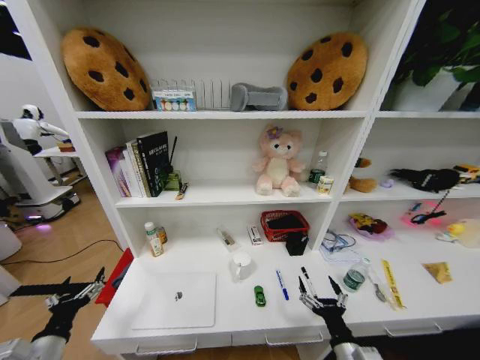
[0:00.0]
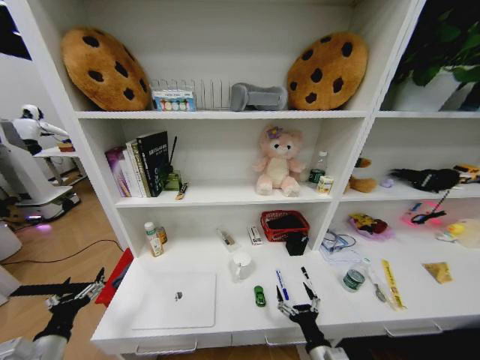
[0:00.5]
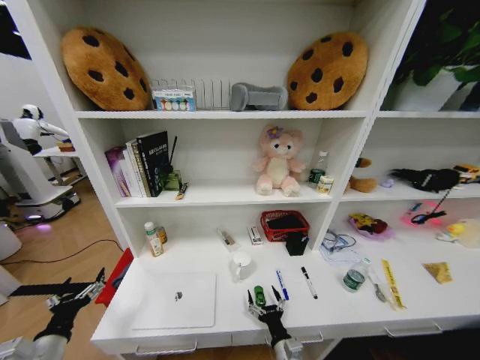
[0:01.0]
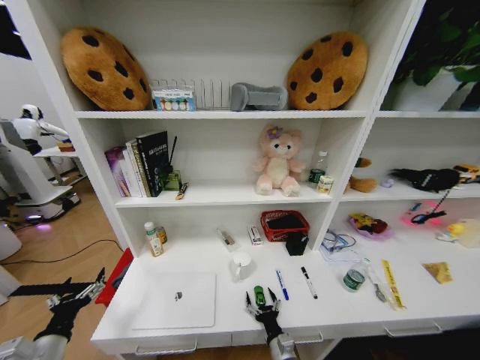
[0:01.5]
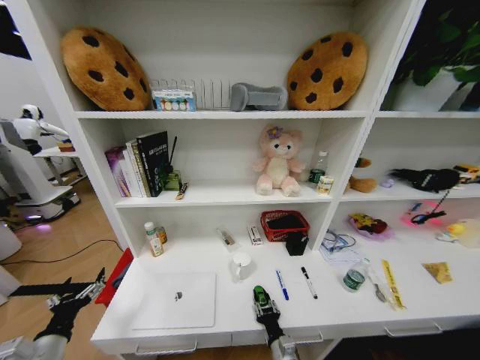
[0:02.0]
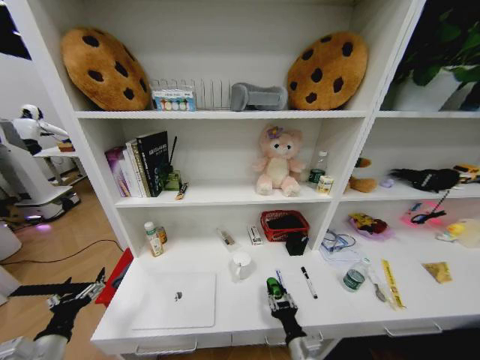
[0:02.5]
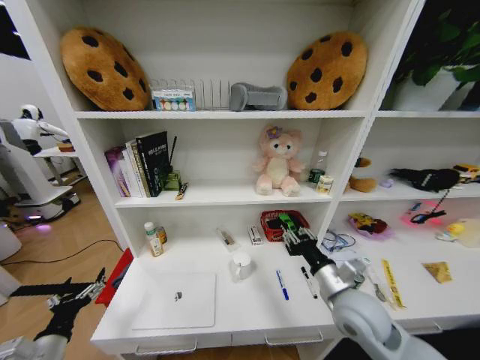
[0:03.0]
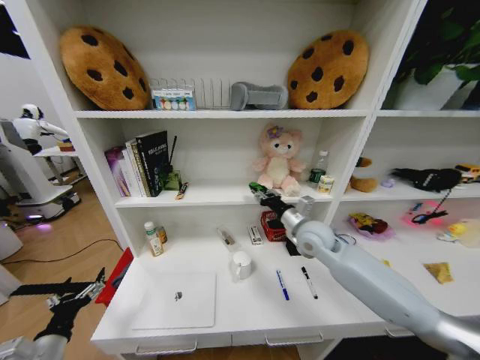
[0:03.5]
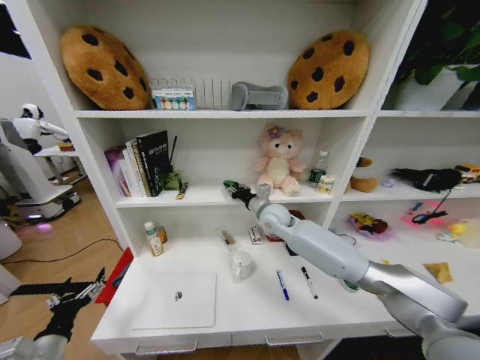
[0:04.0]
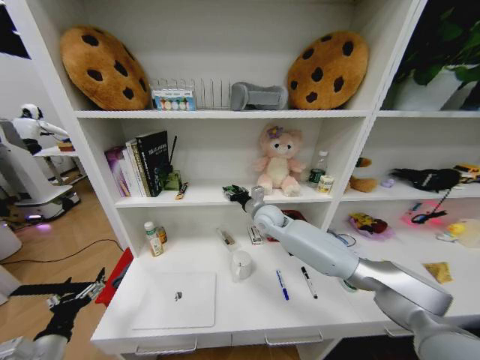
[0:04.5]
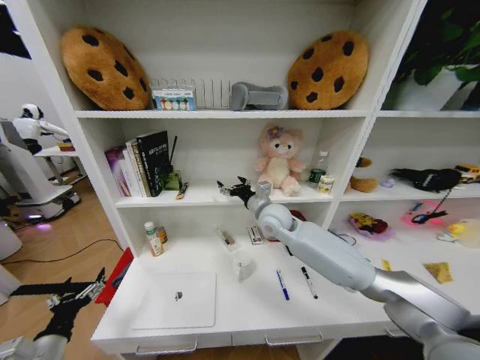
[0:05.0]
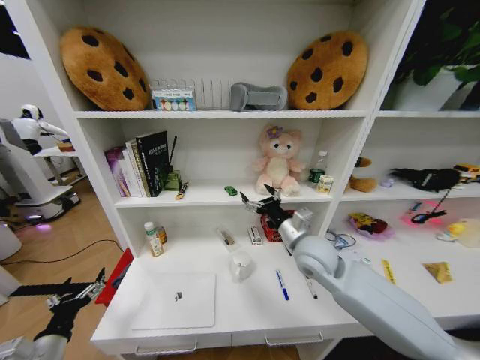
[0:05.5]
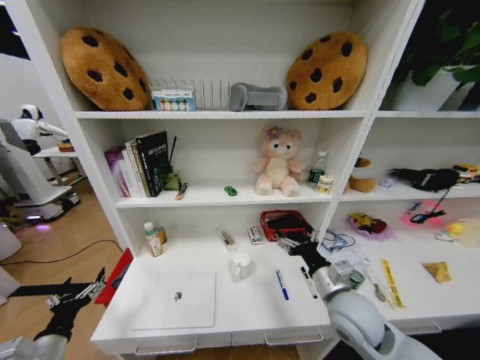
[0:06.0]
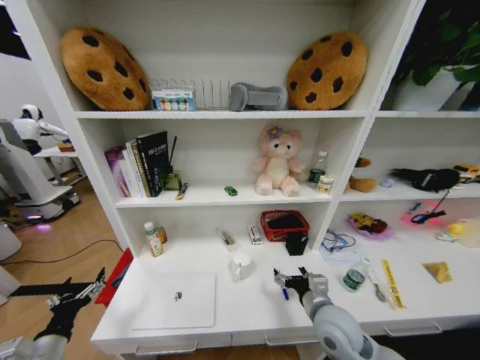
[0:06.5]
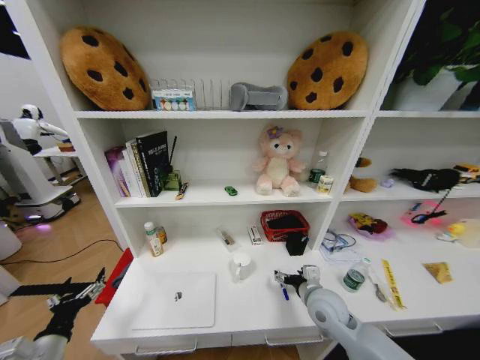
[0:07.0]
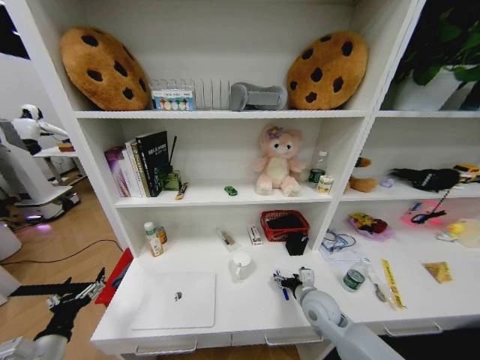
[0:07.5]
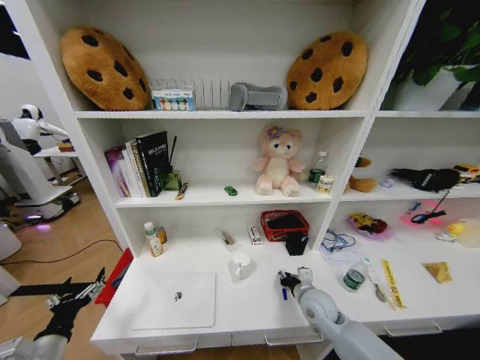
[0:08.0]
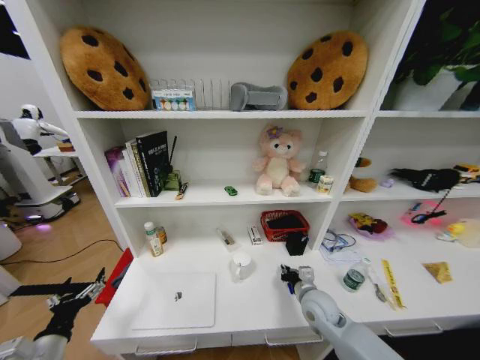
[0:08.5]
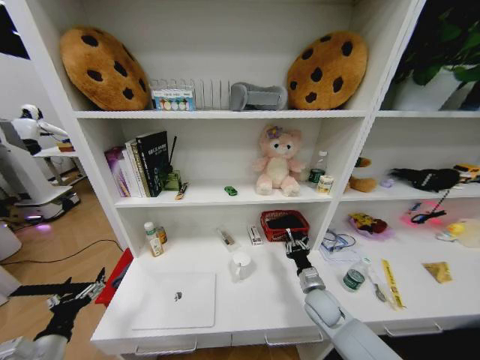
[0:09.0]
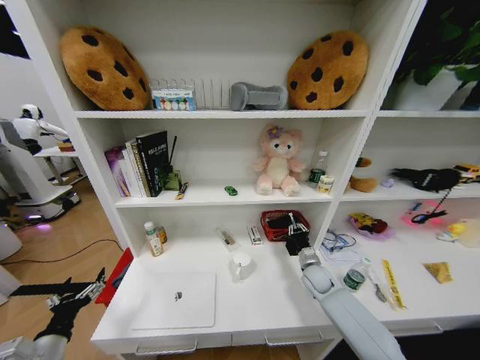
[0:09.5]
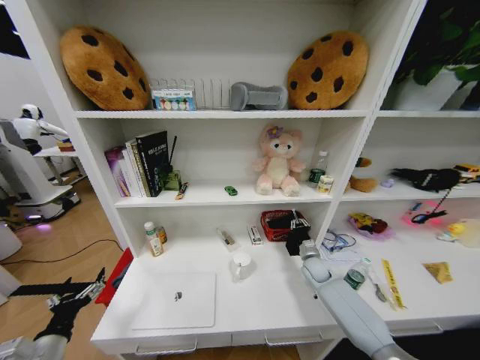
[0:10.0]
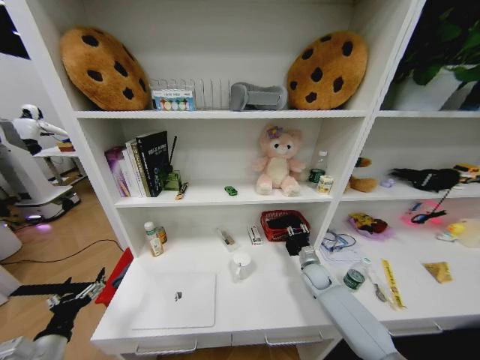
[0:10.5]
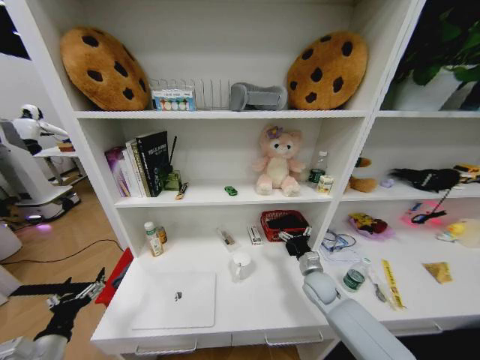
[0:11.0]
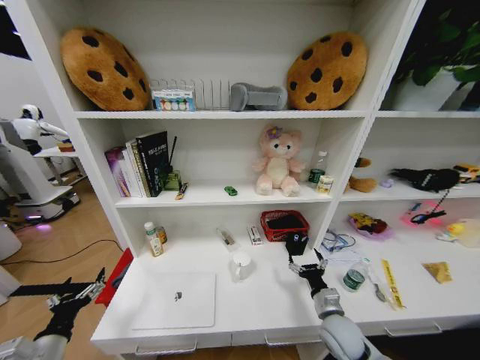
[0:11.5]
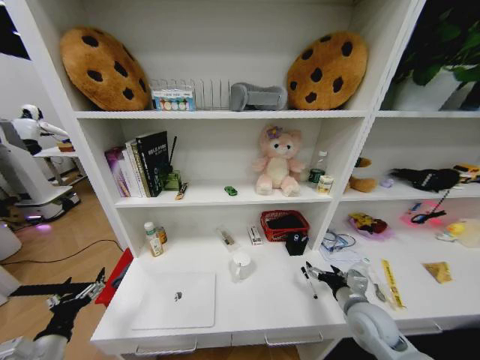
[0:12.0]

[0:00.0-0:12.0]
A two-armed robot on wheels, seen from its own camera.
Task of the whole recording: Organize the objects on the table.
0.0 to 2.0 s: The right gripper goes some 15 cm to the left and downward, and closes.
2.0 to 4.0 s: The right gripper moves forward and upward, roughly 50 cm.
4.0 to 6.0 s: The right gripper travels backward and to the right by roughly 30 cm, and opens up.
6.0 to 8.0 s: The right gripper heads downward and forward, covering about 15 cm, and closes.
8.0 to 10.0 s: The right gripper moves forward and to the right, about 15 cm.
10.0 to 12.0 s: The right gripper is displaced backward and upward by some 20 cm, and opens.

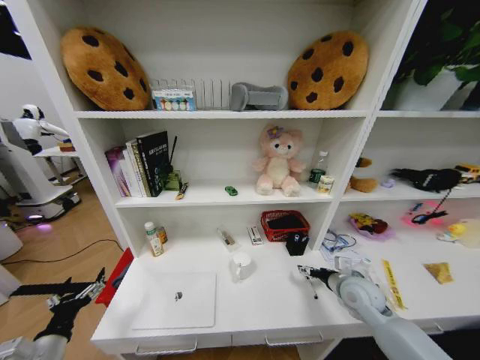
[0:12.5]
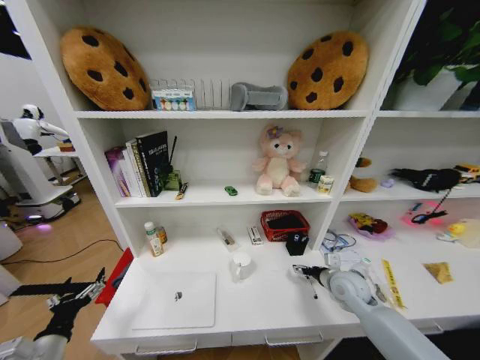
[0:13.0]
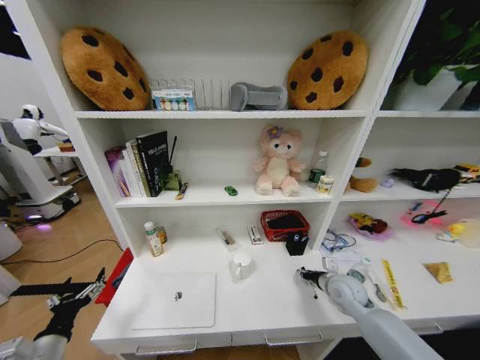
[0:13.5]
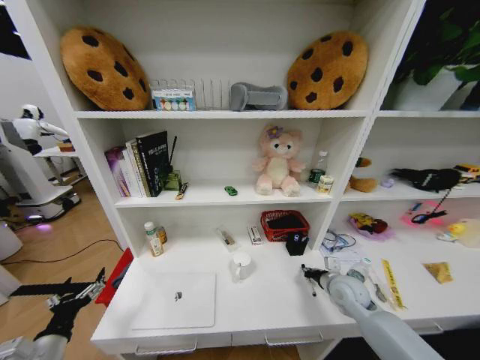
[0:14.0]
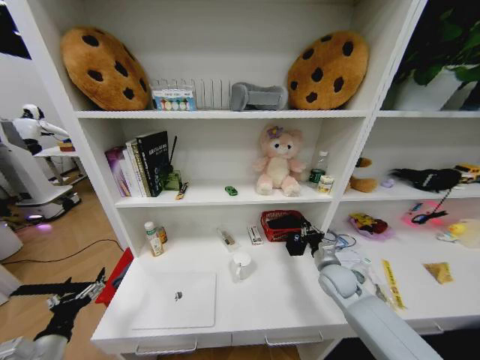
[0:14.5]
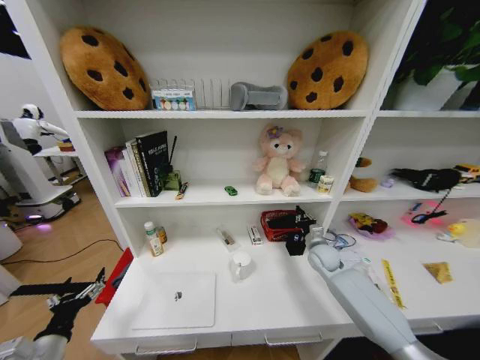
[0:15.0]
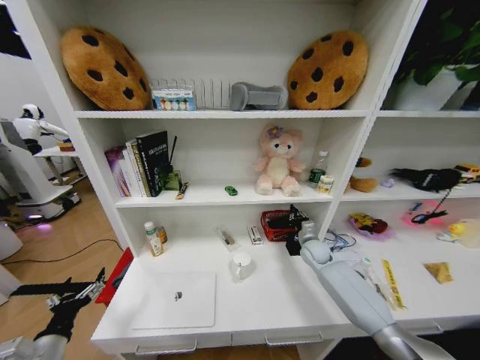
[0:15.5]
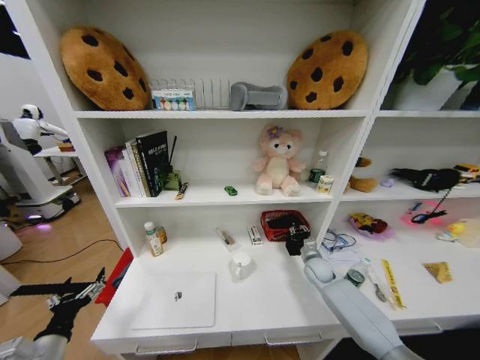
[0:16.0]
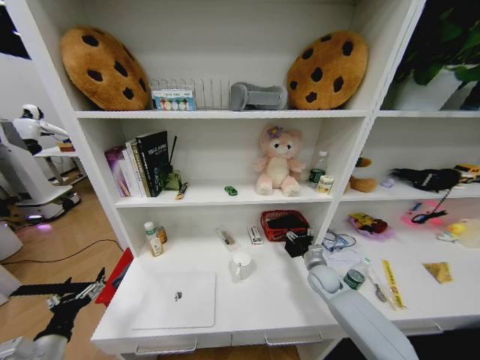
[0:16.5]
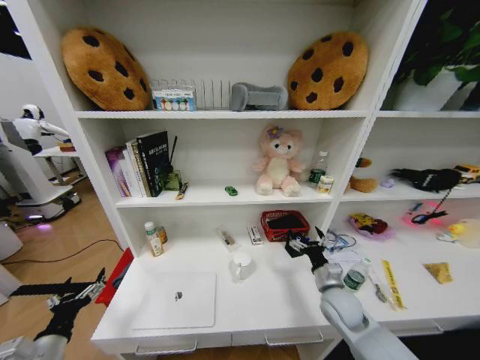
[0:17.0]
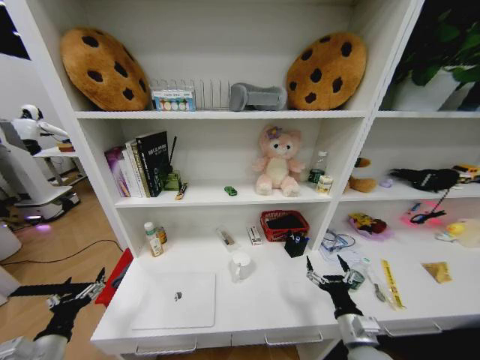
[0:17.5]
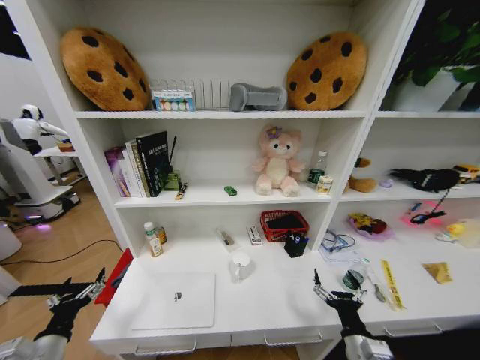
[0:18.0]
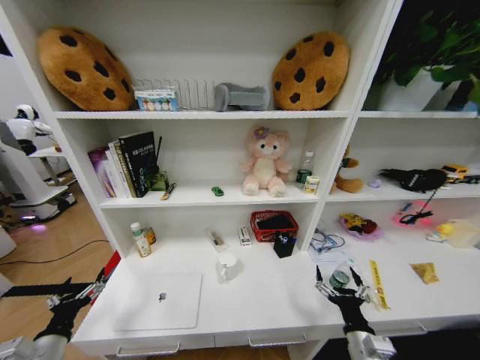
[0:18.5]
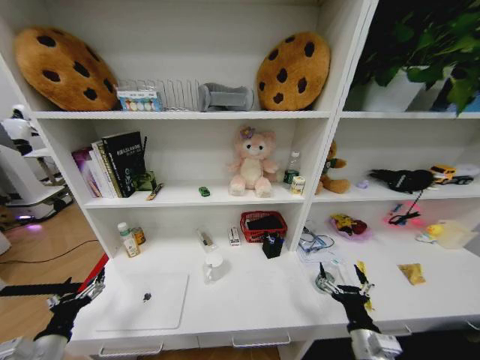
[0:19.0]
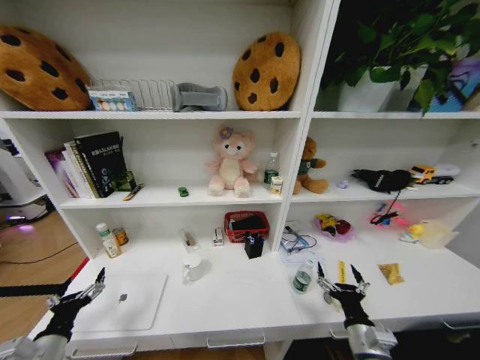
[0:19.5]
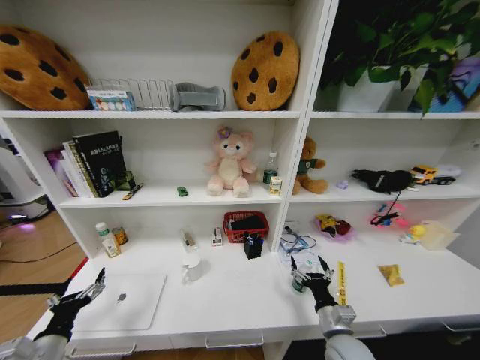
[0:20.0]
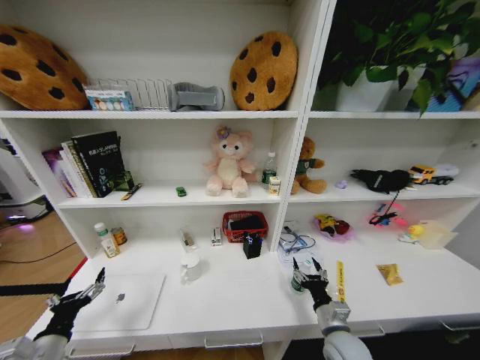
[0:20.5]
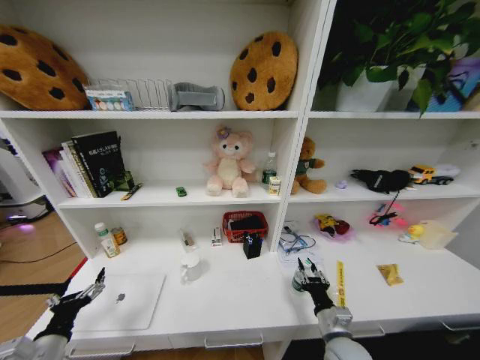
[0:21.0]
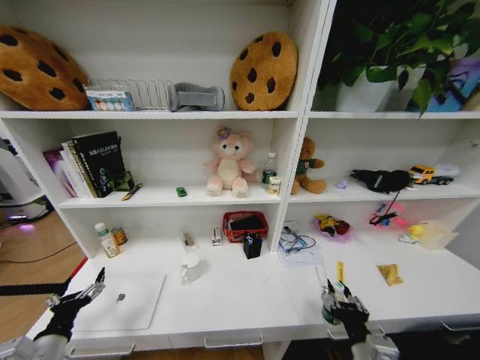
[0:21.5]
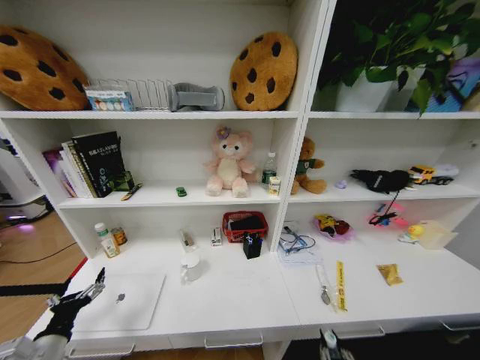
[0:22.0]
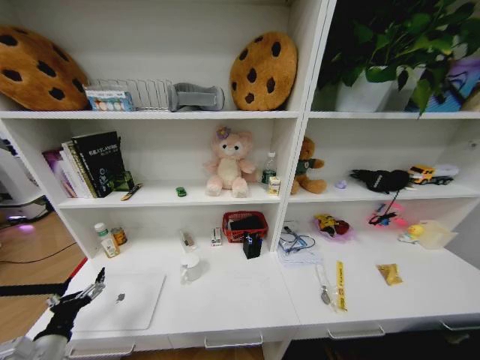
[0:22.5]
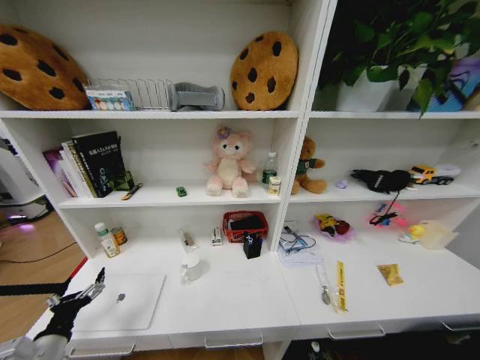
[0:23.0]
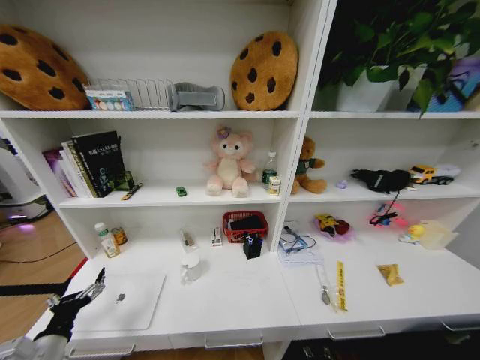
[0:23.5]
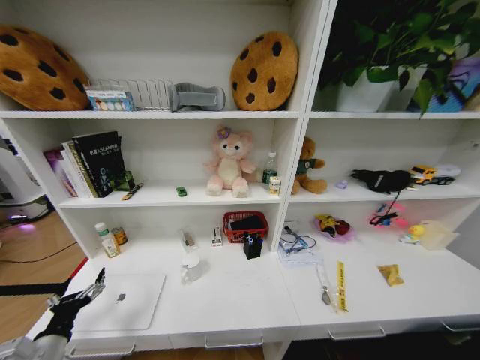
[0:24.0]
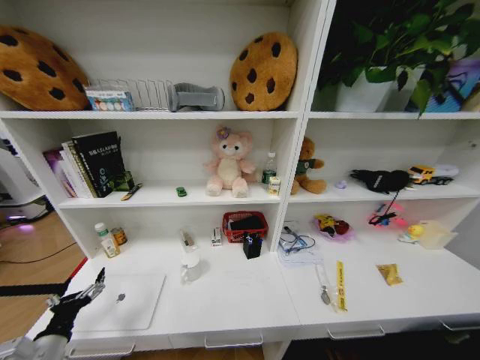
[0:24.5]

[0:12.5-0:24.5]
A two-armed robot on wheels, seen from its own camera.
Task of the whole recording: Organize the objects on the table.
12.5 to 14.5 s: The right gripper shifts by approximately 5 cm, and closes.
14.5 to 16.5 s: The right gripper heads downward, covering some 5 cm, and opens up.
16.5 to 18.5 s: The right gripper heads backward, covering approximately 25 cm.
18.5 to 20.5 s: The right gripper shifts roughly 5 cm forward.
20.5 to 22.5 s: The right gripper moves backward and downward, about 30 cm, and closes its fingers.

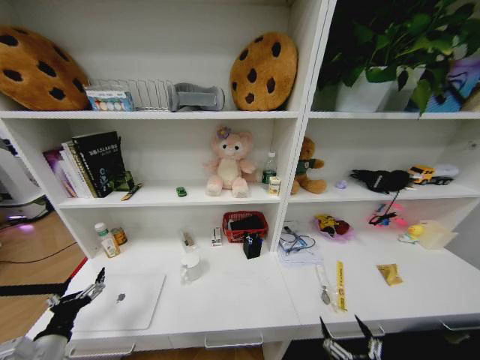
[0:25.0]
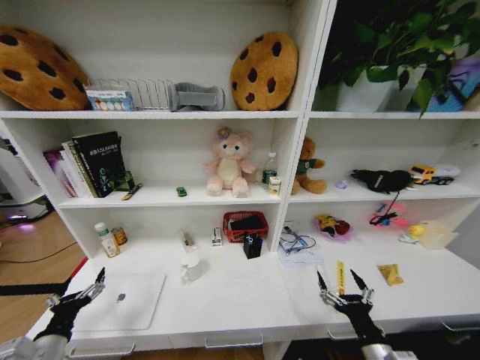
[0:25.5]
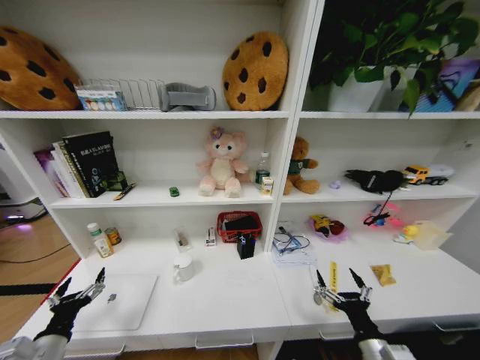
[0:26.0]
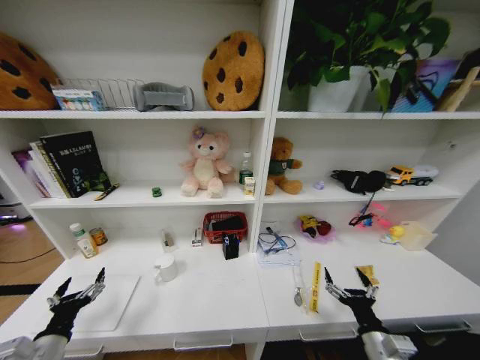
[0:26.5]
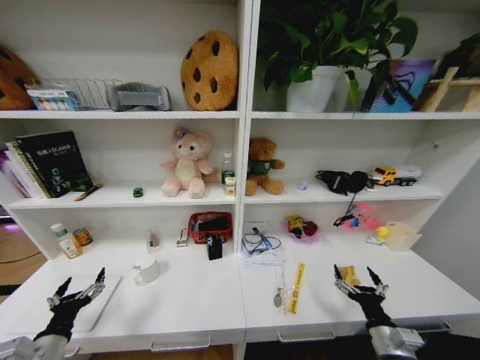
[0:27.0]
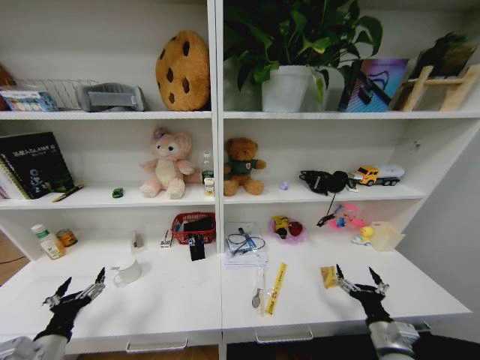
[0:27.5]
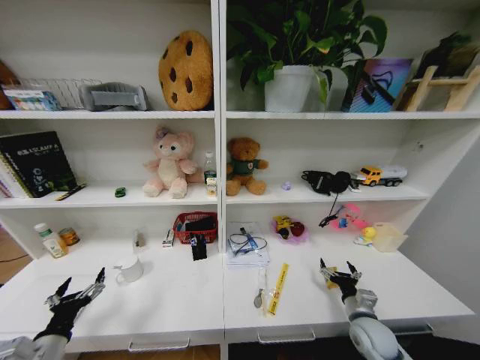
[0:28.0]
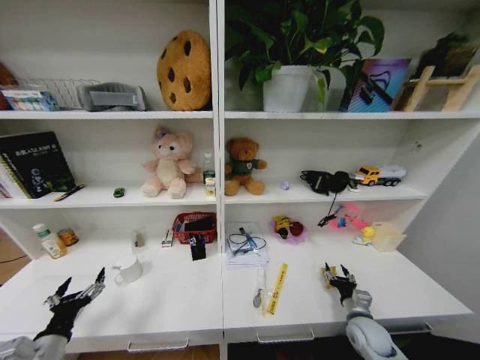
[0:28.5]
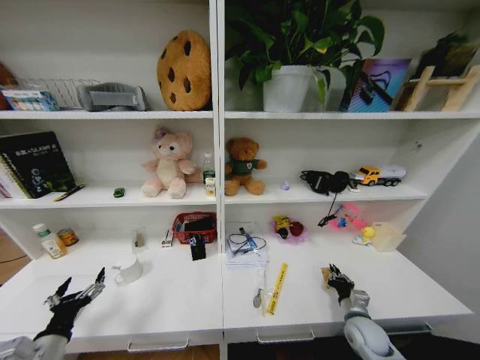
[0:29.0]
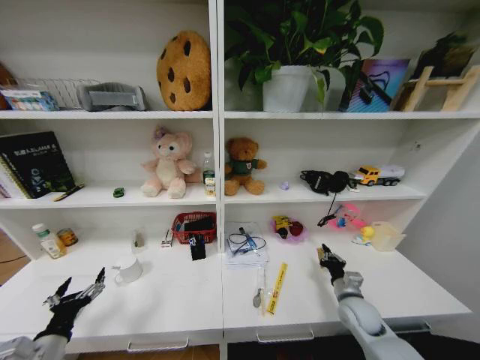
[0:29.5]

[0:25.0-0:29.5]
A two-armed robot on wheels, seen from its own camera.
Task of the whole recording: Organize the objects on the table.
25.0 to 27.0 s: The right gripper goes approximately 15 cm forward.
27.0 to 29.5 s: The right gripper goes roughly 15 cm forward, and closes.
